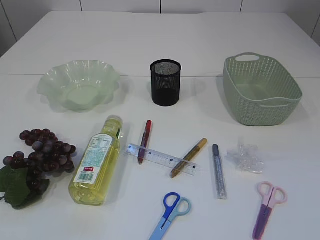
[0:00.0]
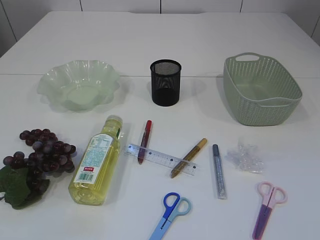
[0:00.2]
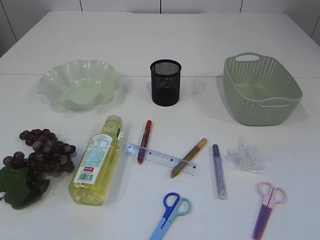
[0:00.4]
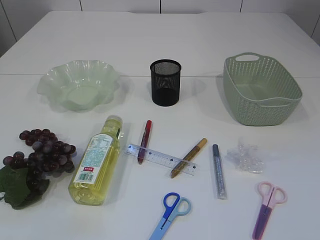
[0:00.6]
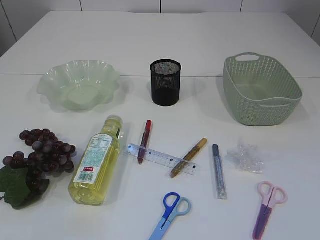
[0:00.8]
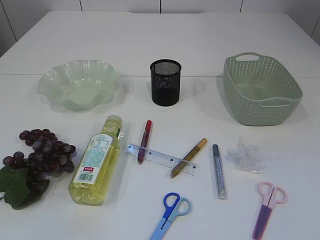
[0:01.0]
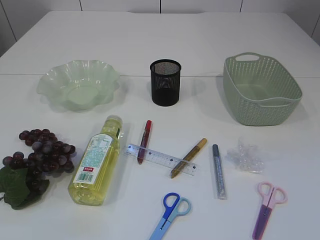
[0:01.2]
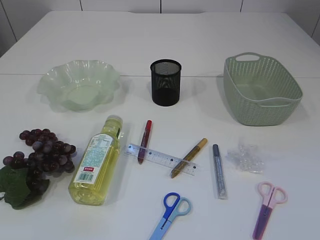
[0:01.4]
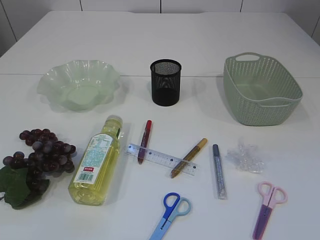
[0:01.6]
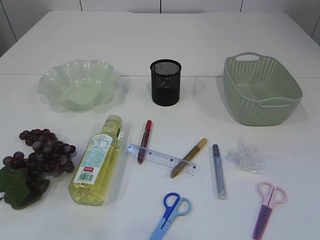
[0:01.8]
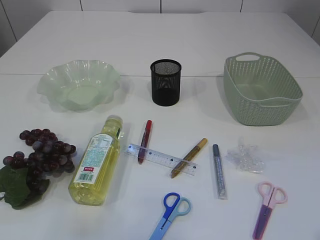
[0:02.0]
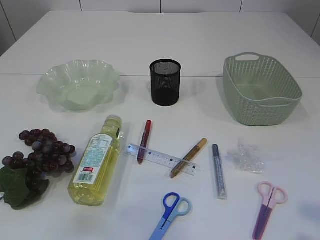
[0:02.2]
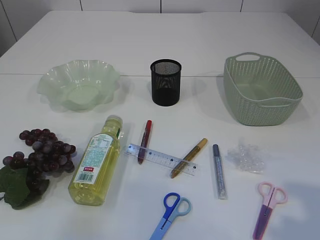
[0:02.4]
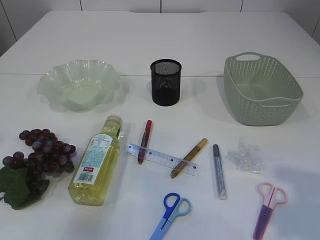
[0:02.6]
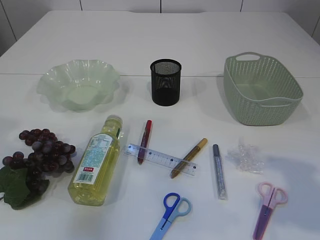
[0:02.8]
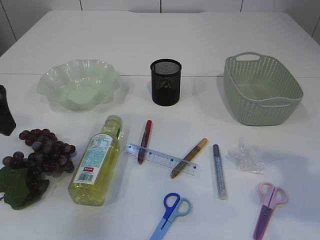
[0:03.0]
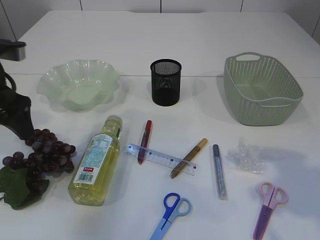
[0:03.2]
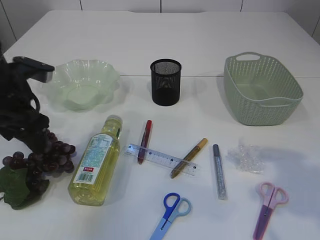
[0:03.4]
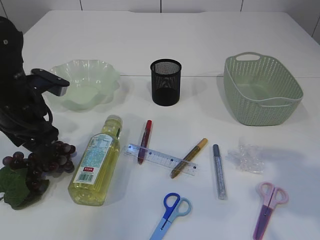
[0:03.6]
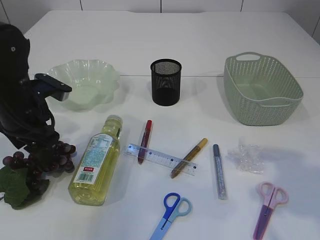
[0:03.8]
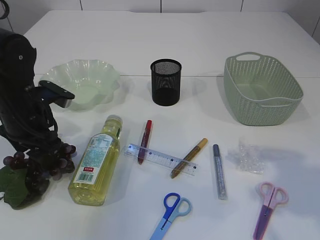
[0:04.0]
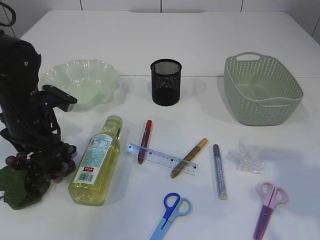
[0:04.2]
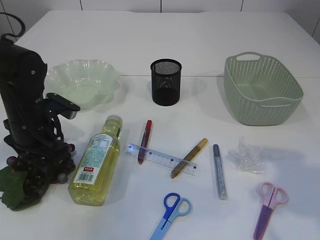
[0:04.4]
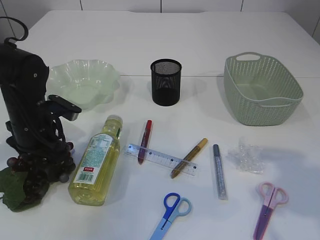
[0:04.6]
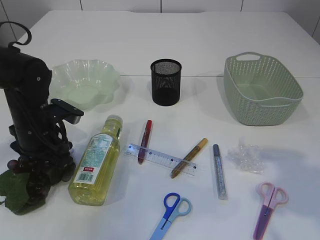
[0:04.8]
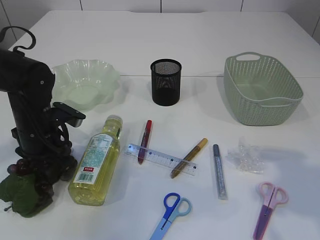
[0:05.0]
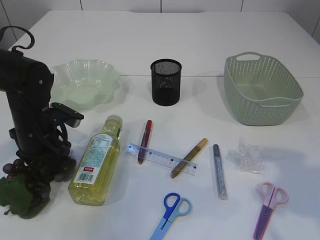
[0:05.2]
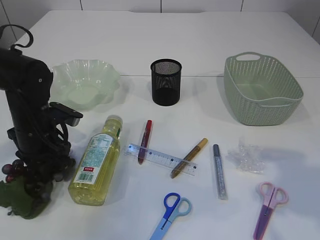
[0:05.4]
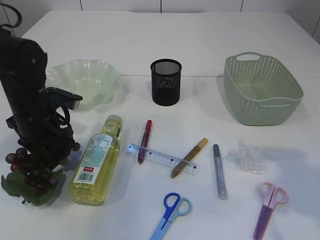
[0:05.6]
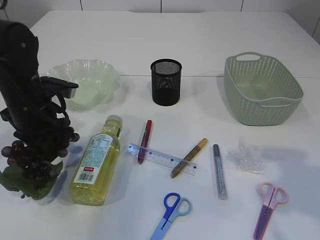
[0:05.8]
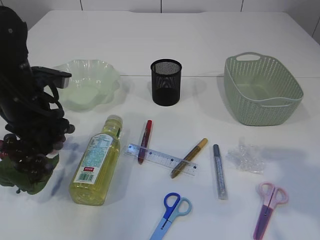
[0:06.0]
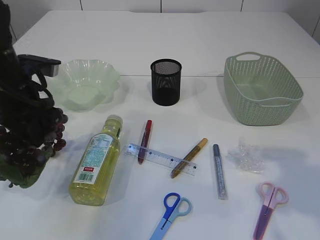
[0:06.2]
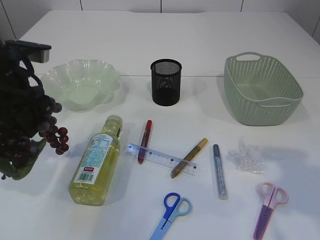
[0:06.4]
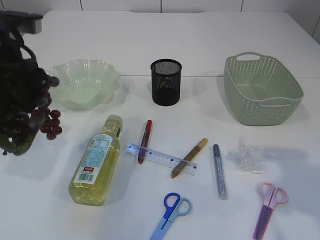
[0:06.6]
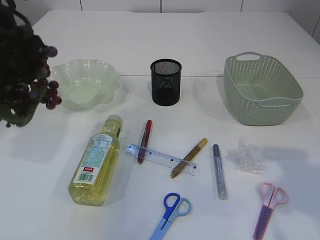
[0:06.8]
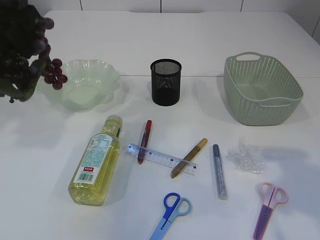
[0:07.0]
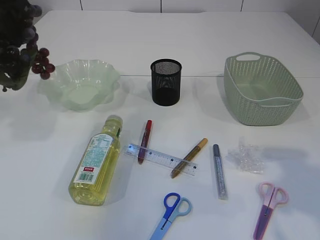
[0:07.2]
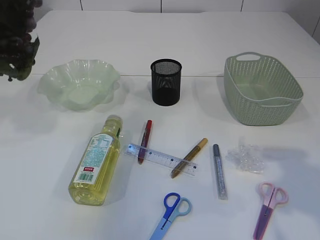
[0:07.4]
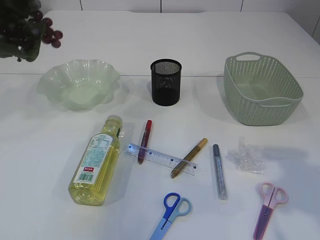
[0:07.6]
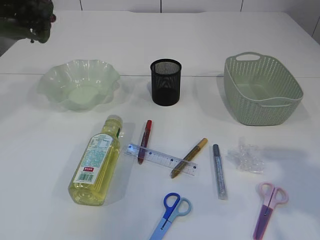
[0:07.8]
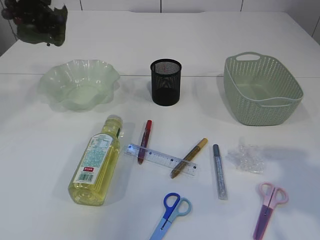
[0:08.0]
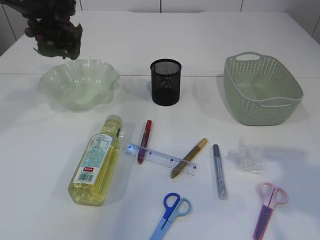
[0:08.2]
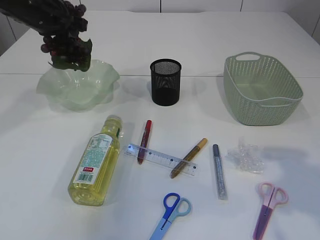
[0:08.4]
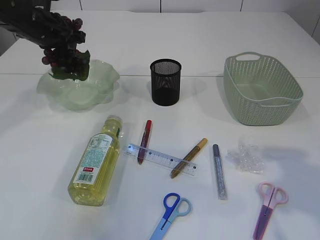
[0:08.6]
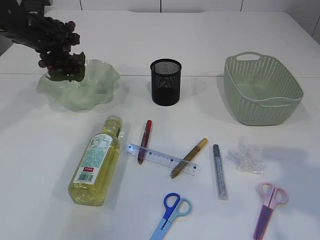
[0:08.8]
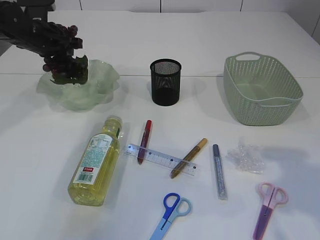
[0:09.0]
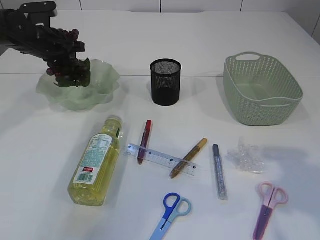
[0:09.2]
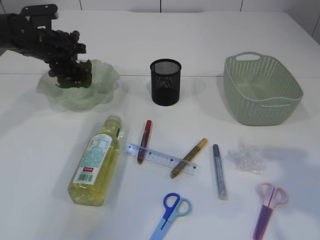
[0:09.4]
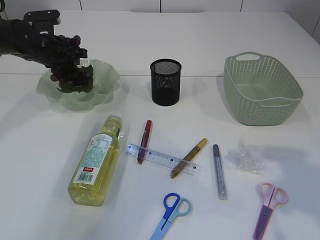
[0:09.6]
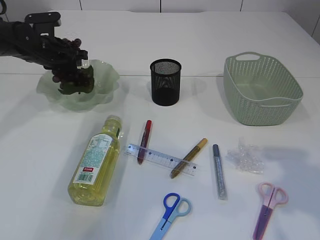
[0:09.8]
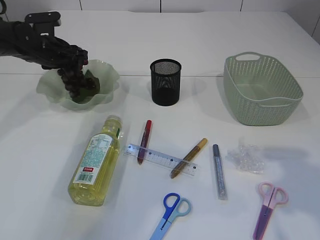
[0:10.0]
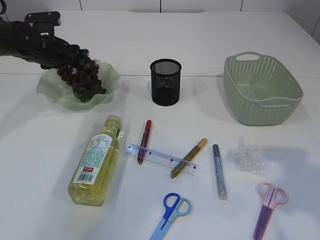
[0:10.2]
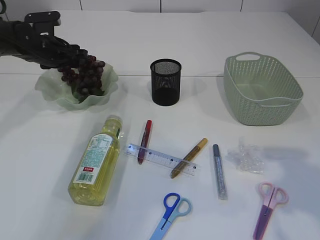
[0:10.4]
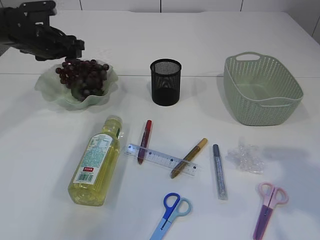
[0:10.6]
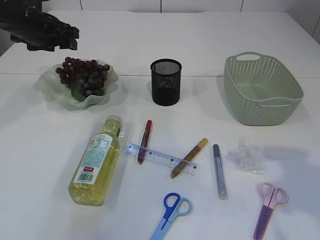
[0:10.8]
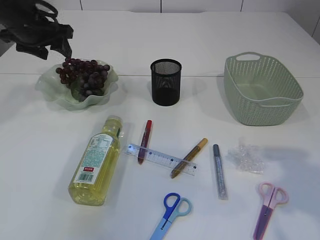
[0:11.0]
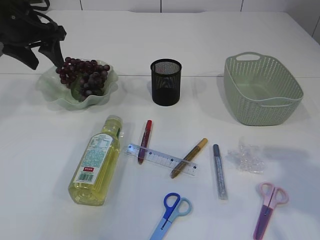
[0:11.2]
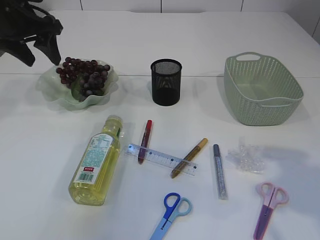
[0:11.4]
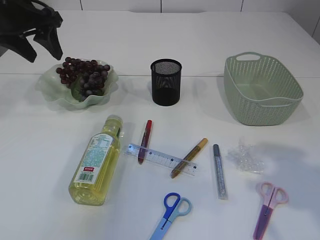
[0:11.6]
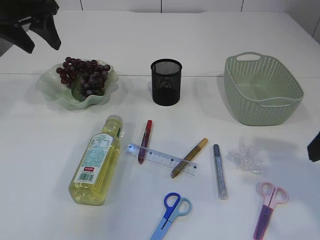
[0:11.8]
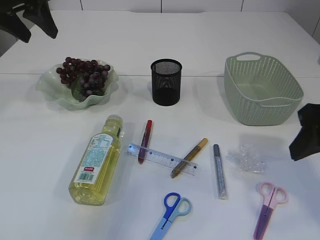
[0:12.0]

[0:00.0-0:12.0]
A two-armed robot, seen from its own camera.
Step, 0.0 to 6.6 s: Pick up the grapes.
Step, 6.8 to 11.2 s: Place the grapes in the plate.
1.6 to 3.0 s: The left gripper goes about 30 cm forward, and opens up. Meanwhile the right gripper shifts approximately 15 cm forward.
3.0 to 4.4 s: The left gripper travels downward and forward by approximately 15 cm.
4.4 to 6.0 s: The left gripper goes roughly 5 cm upward, and closes its fingers.
6.0 to 7.6 s: The left gripper heads upward, covering about 20 cm.
7.6 to 9.0 s: The left gripper shifts some 20 cm downward and forward.
9.0 to 10.4 s: The left gripper opens its fingers.
10.4 to 12.0 s: The left gripper shifts some 20 cm upward and backward, while the right gripper ends up approximately 5 cm from where it was.

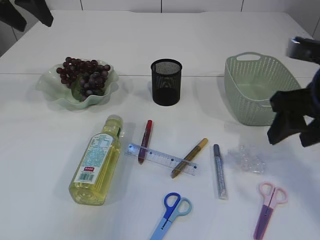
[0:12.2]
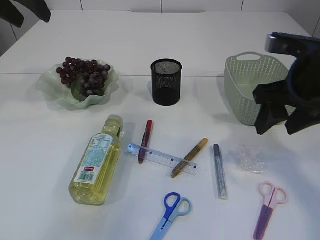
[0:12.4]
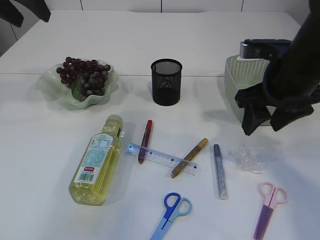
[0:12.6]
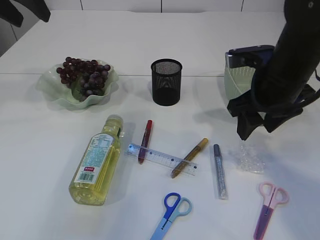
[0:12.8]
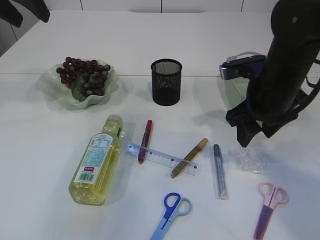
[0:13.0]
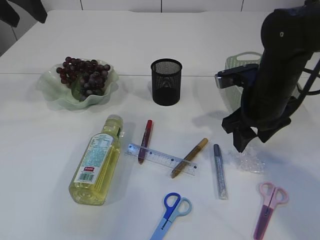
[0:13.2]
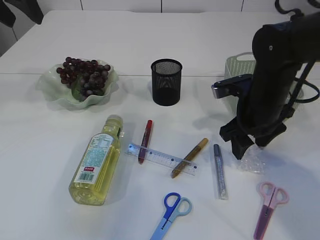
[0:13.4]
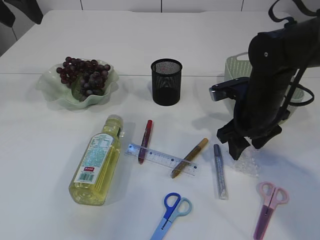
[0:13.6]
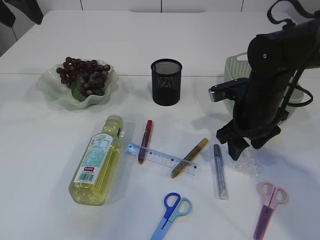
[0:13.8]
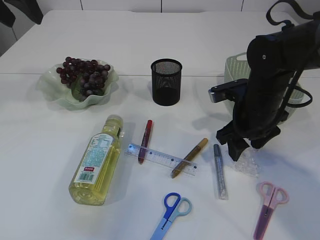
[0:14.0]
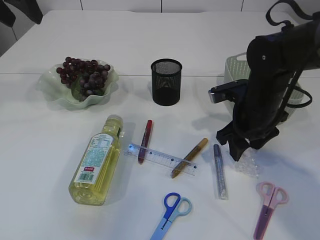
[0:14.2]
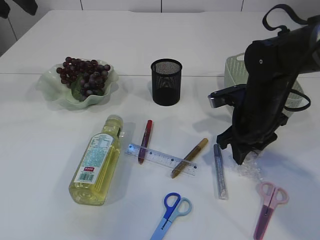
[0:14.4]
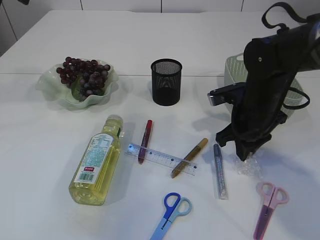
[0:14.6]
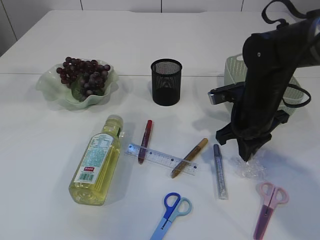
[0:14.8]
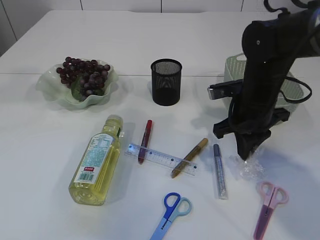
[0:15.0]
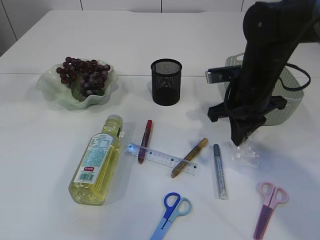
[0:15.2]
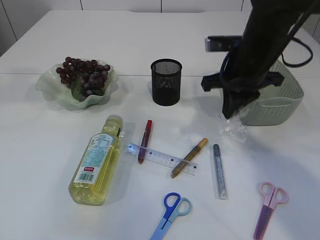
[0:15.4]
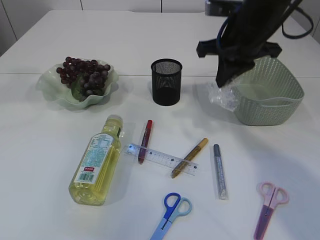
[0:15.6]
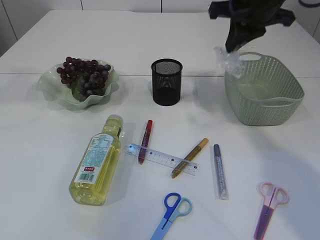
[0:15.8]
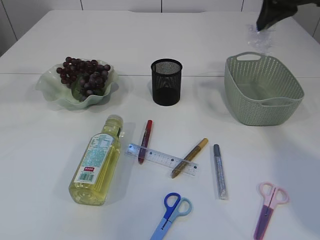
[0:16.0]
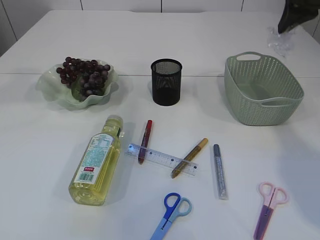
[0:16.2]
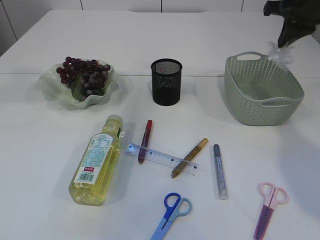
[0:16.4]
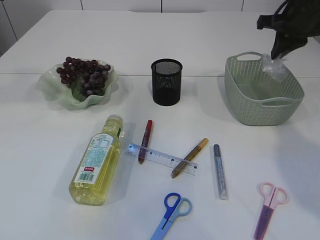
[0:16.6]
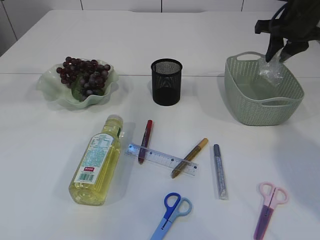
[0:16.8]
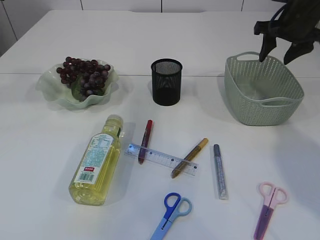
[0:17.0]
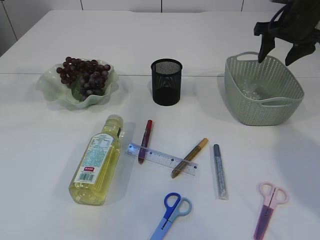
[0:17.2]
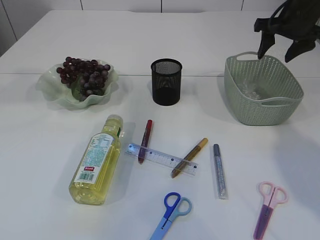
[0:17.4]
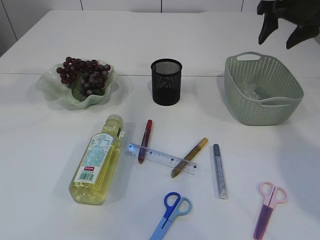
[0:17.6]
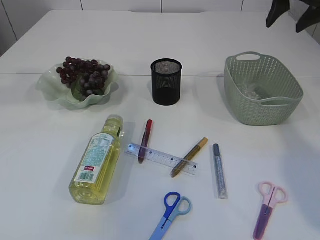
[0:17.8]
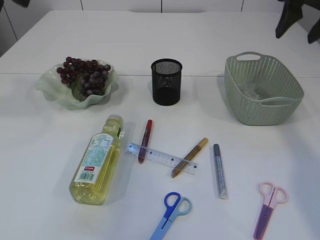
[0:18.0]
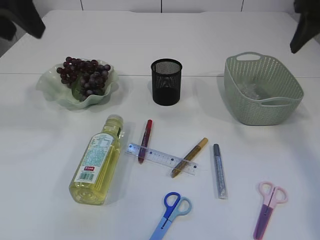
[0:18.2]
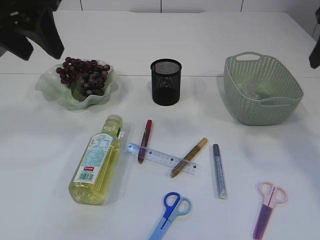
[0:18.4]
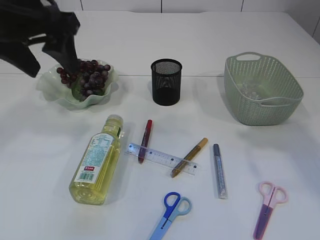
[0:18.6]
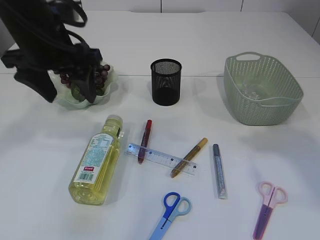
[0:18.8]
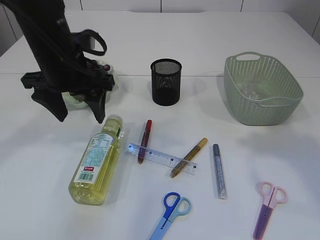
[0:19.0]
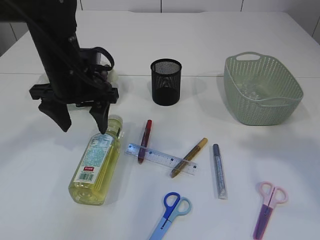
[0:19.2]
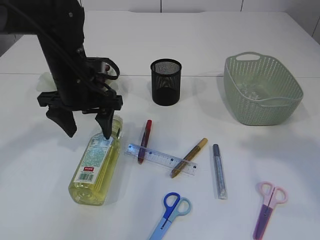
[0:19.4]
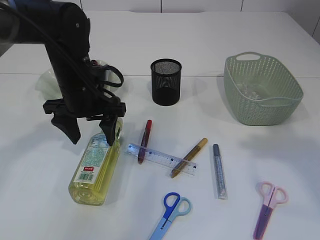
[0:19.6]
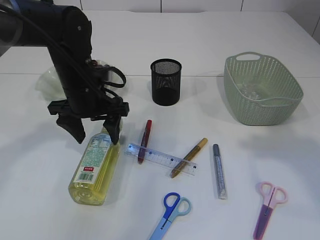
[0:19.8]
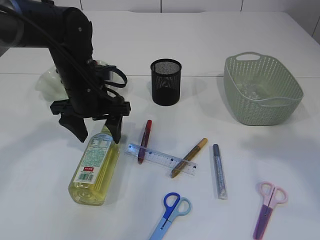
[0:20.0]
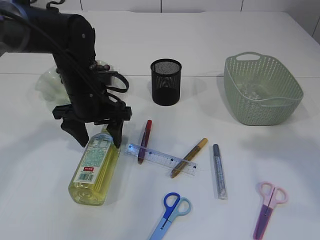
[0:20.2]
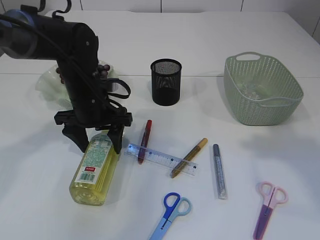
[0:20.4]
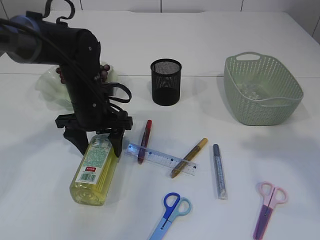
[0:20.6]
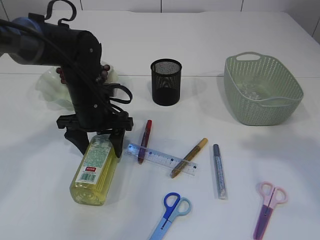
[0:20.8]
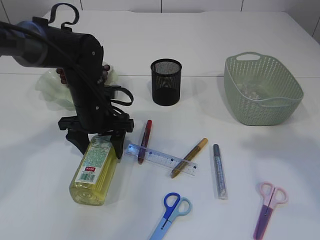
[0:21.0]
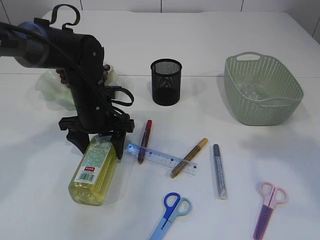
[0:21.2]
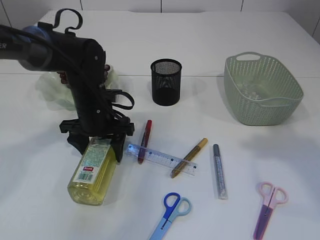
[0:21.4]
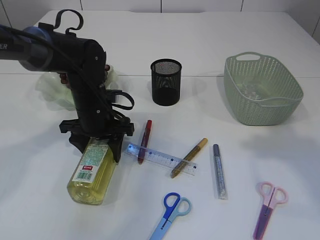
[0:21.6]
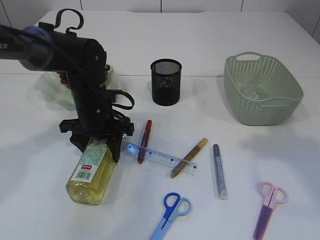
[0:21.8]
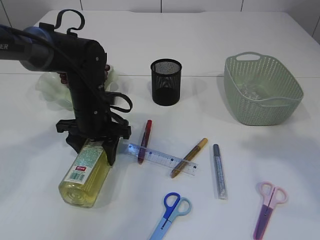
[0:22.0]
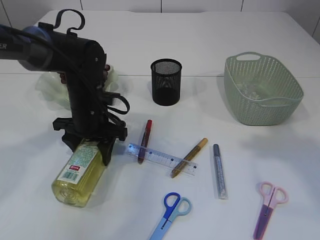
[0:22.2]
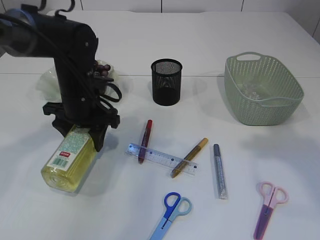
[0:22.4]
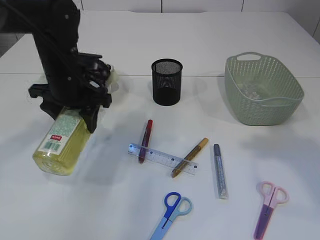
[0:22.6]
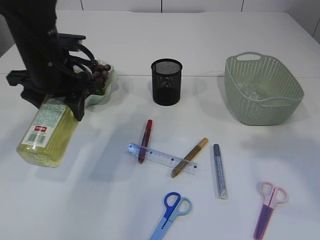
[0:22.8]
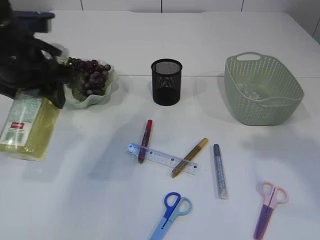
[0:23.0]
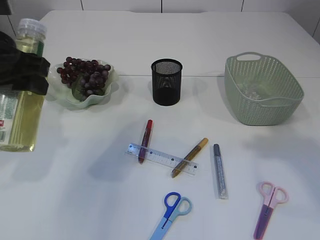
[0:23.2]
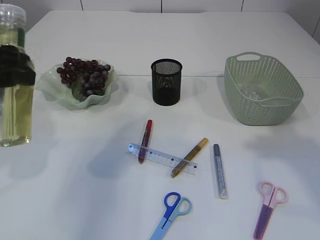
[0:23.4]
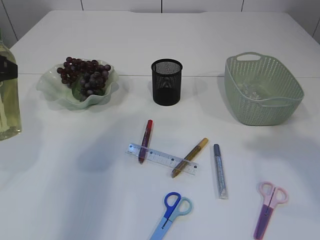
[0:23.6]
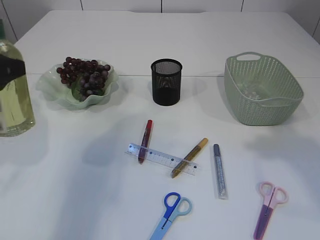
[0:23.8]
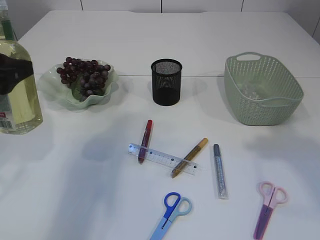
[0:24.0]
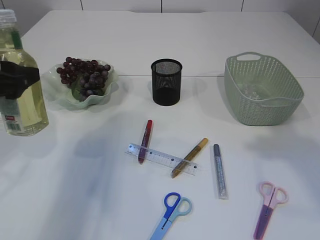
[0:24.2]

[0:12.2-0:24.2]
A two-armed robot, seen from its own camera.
Step, 12.2 to 15.6 s: Pick up the plastic.
Step, 15.8 to 17.8 s: Place the plastic in the basket.
Step, 18.0 to 22.8 s: Pick up the bottle with the left arm.
12.2 to 13.8 s: The right gripper heads forward and downward, covering roughly 15 cm.
13.8 to 15.2 s: The left gripper ends up approximately 5 cm from where it was. The right gripper closes.
15.2 to 16.6 s: The right gripper travels to the right, forward and upward by roughly 20 cm.
16.6 to 18.2 s: The left gripper shifts approximately 5 cm backward. The right gripper shifts approximately 15 cm backward and upward, and opens.
18.2 to 19.8 s: The right gripper is displaced backward by about 15 cm. The left gripper is displaced downward by about 20 cm, and opens up.
19.8 to 21.2 s: The left gripper shifts by about 5 cm.
21.2 to 22.6 s: The left gripper is displaced upward by some 5 cm.
22.6 to 24.2 s: The left gripper moves to the left and backward, some 15 cm.
